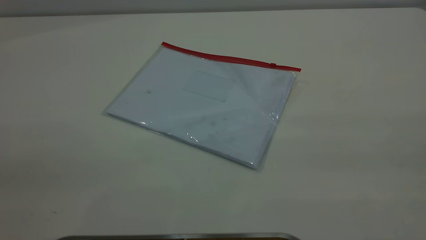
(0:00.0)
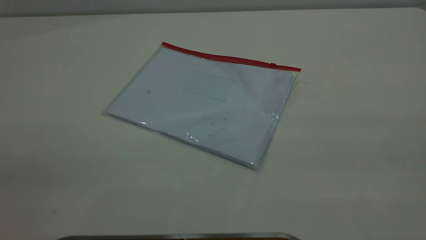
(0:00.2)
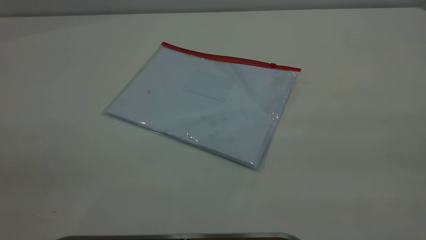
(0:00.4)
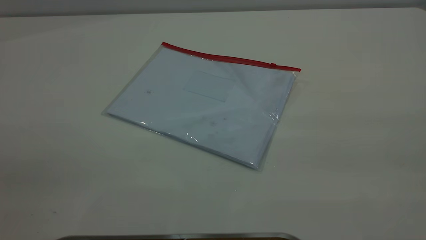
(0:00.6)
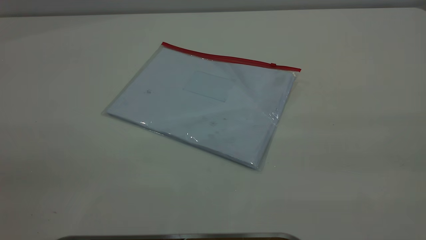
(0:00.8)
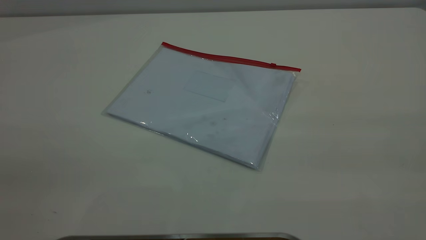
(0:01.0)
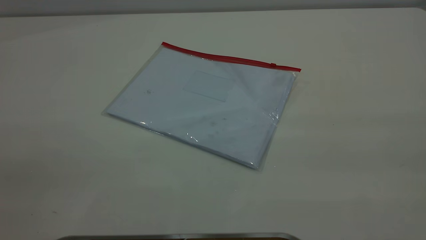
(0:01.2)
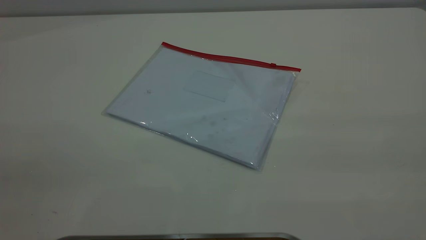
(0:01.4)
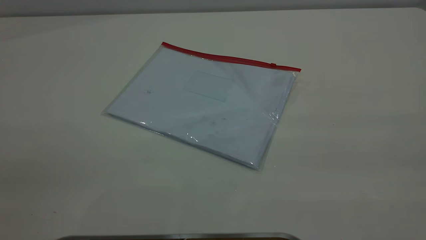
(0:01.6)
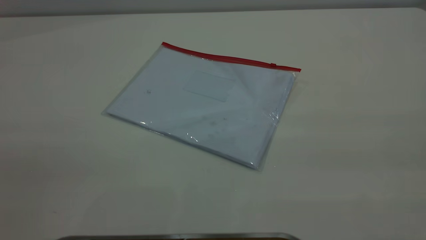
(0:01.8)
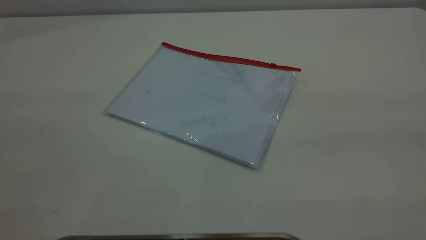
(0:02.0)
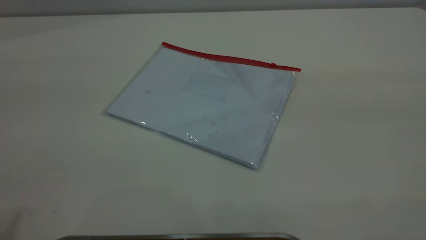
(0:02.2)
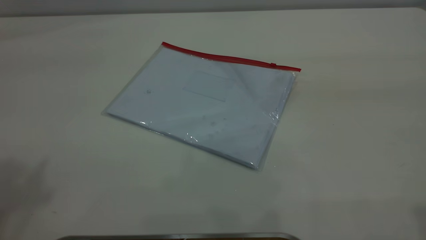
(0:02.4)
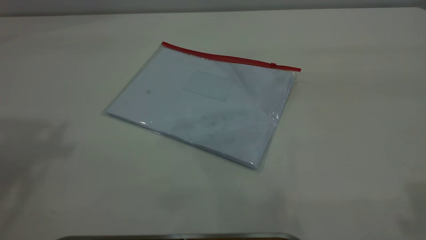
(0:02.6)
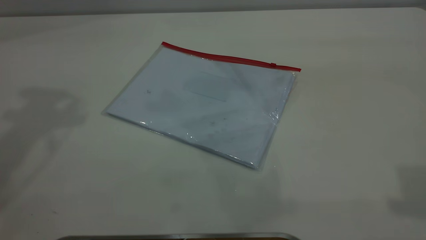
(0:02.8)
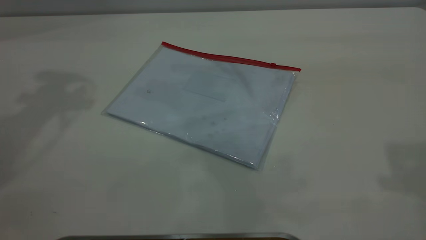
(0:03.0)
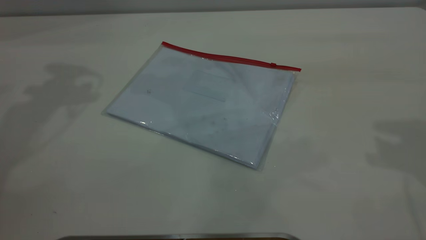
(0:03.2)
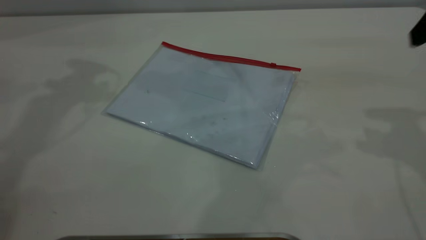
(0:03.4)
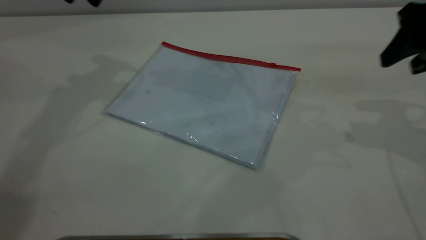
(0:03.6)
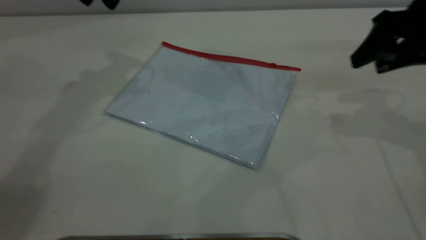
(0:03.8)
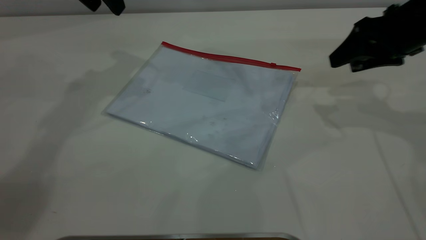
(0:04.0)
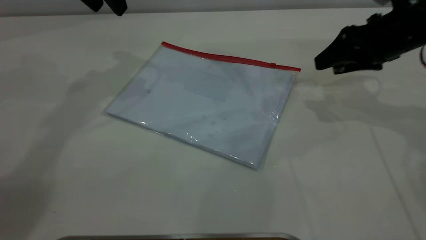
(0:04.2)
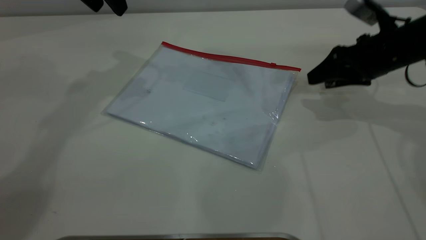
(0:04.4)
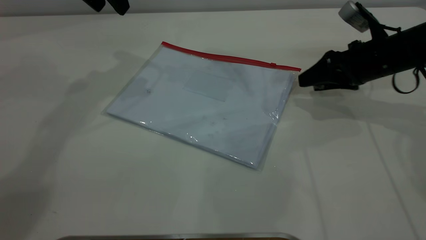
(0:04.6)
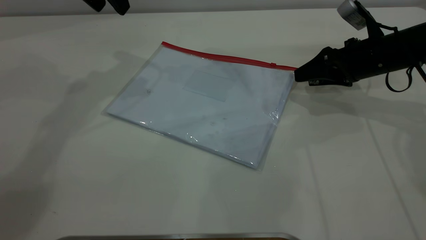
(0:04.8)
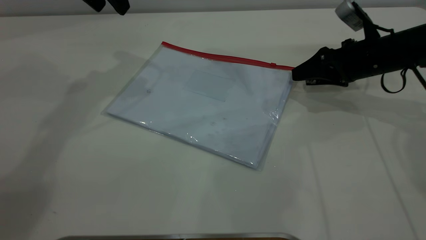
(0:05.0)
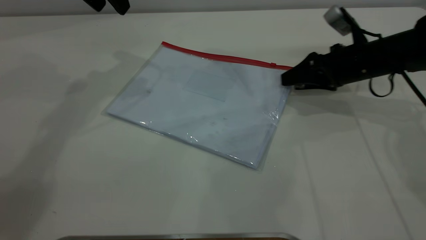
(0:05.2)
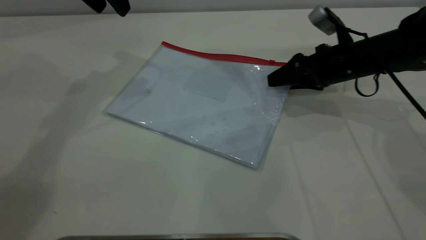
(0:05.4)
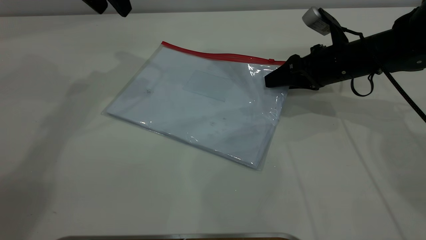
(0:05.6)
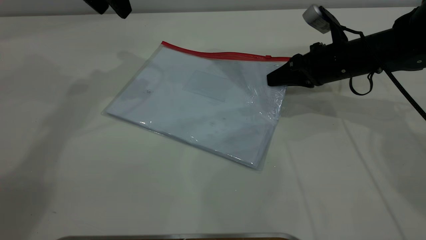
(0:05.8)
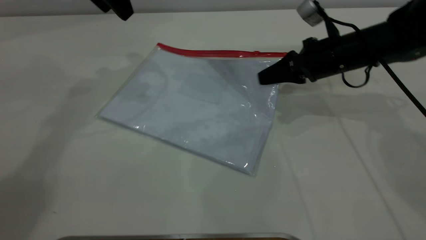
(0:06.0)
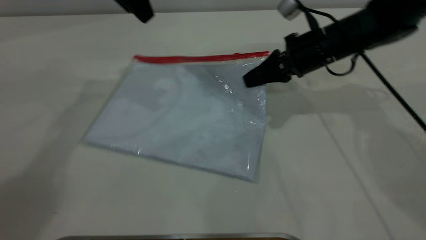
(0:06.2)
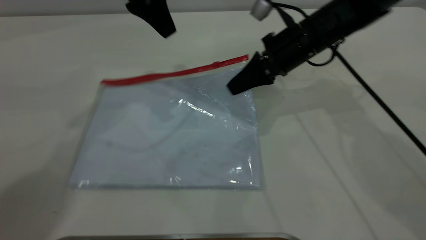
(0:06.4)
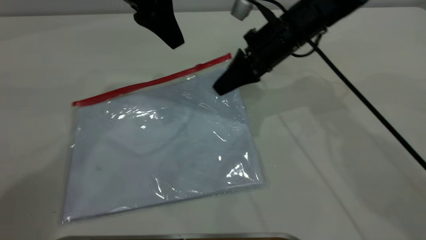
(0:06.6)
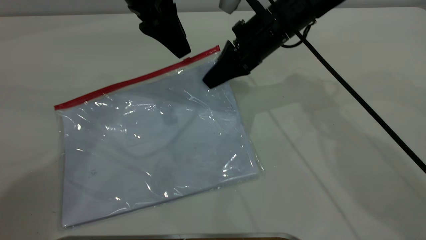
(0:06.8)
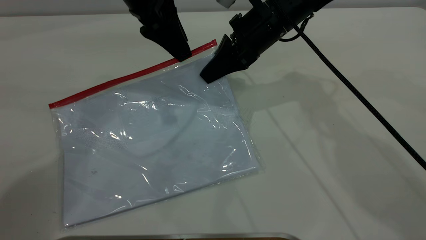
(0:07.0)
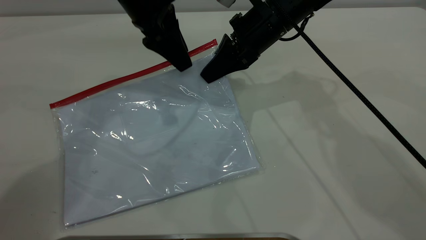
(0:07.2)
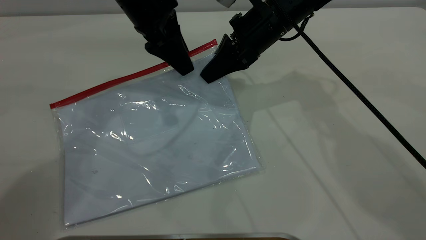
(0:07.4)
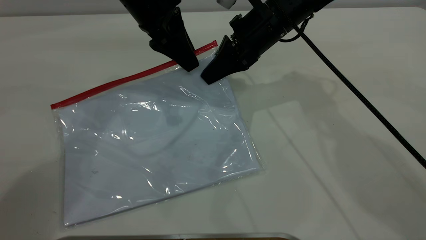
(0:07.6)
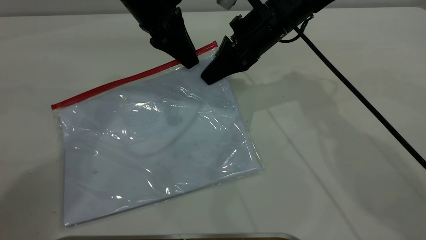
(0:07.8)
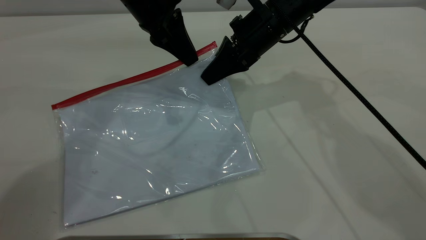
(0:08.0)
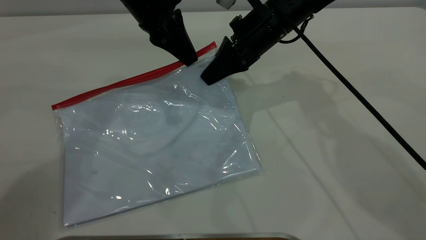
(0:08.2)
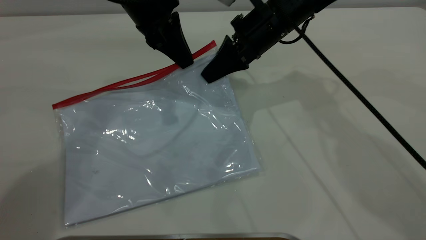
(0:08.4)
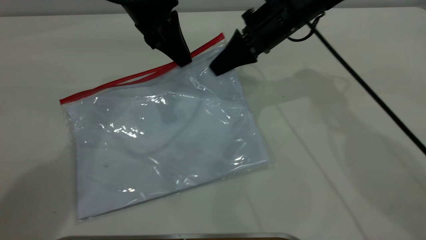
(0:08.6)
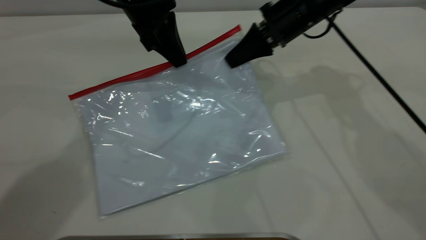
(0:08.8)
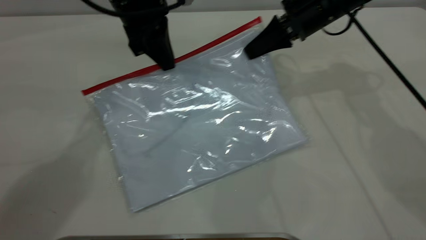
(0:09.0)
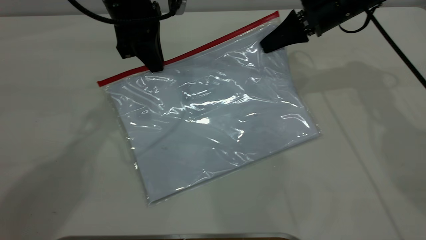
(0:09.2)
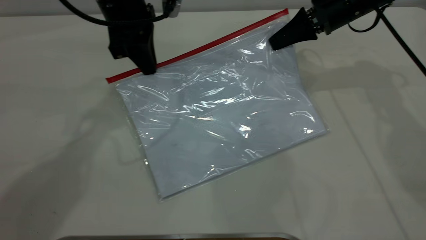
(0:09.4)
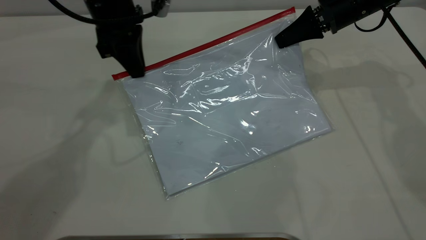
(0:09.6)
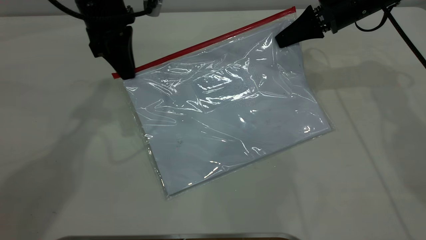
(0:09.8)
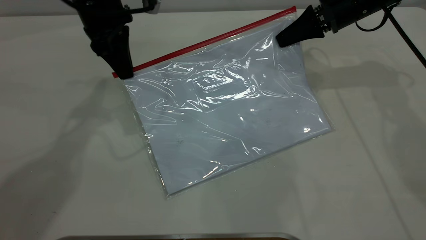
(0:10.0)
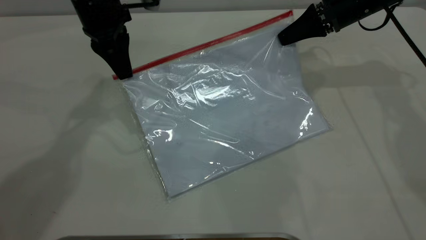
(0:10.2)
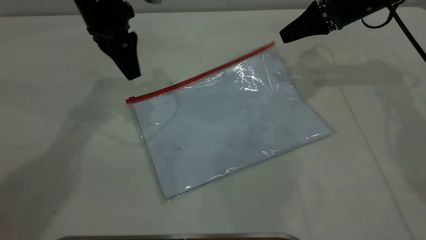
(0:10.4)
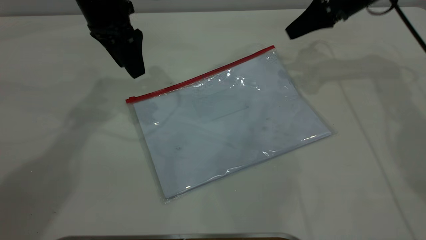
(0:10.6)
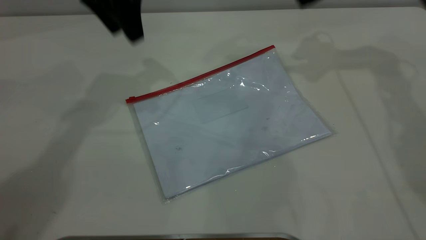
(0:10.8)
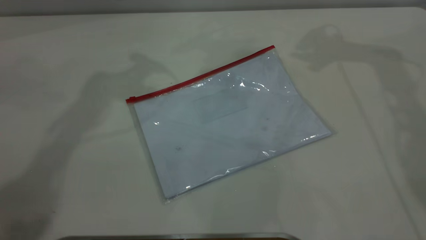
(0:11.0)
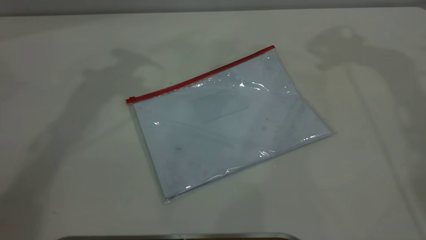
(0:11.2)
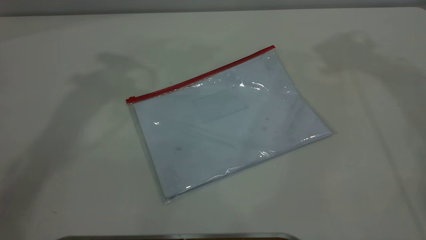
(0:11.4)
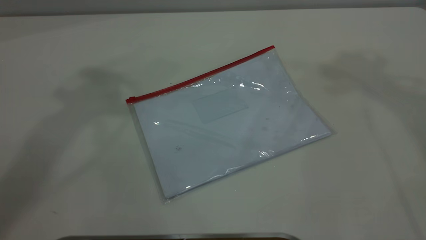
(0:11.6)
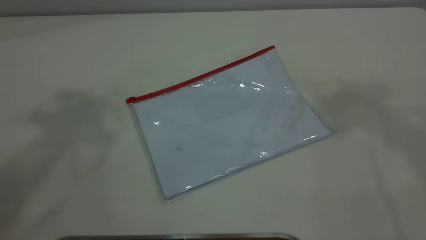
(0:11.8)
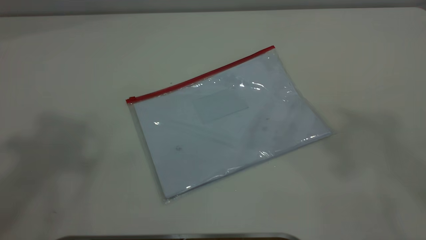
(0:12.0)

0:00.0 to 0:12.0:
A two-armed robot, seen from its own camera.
Step, 0:00.0 to 0:06.4: Pick up the transparent plastic bag with the right gripper.
Step, 0:06.8 to 0:10.2: Pulling up the zipper on the transparent plastic bag with the left gripper to close it.
Step, 0:10.4 to 0:11.2: Place the transparent plastic bag.
0:00.0 to 0:01.6: Both grippers stay put.
0:03.0 to 0:04.4: The right gripper goes some 35 cm downward and forward.
0:04.4 to 0:06.0: The right gripper heads to the left, covering approximately 10 cm, and closes.
0:06.0 to 0:07.6: The left gripper is displaced to the right and downward by roughly 10 cm. Meanwhile the right gripper heads to the left and upward, covering some 10 cm.
0:07.6 to 0:09.0: The right gripper moves to the right, some 10 cm. Meanwhile the left gripper closes its fingers.
0:09.0 to 0:10.4: The left gripper opens. The right gripper goes roughly 5 cm to the right, and opens up.
0:10.4 to 0:12.0: The grippers both shift upward and backward by some 50 cm.

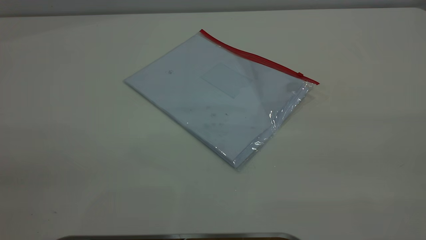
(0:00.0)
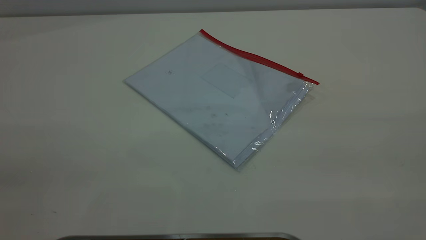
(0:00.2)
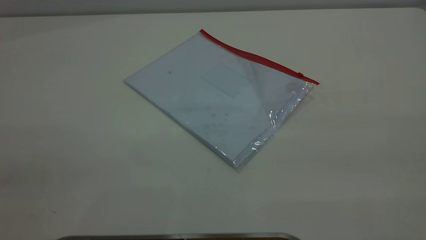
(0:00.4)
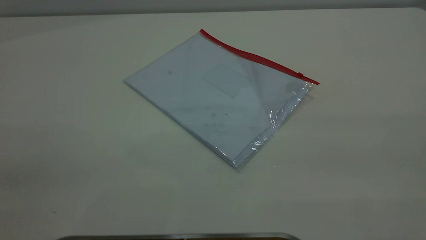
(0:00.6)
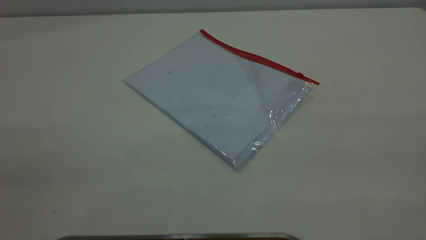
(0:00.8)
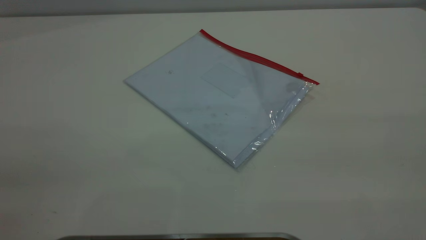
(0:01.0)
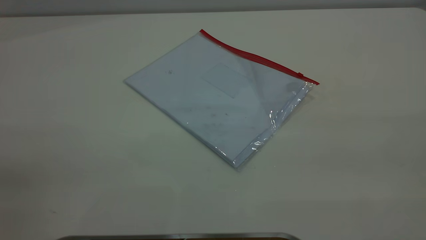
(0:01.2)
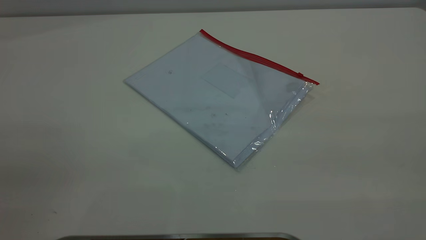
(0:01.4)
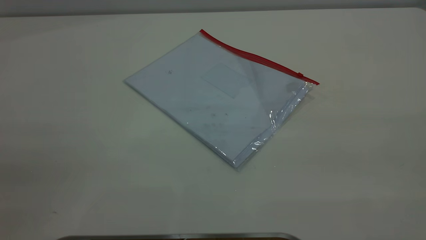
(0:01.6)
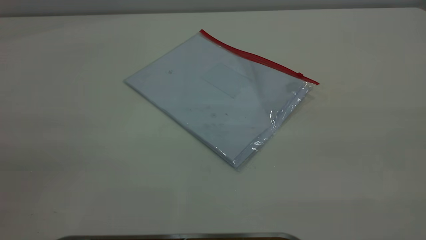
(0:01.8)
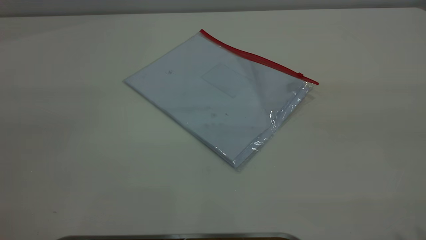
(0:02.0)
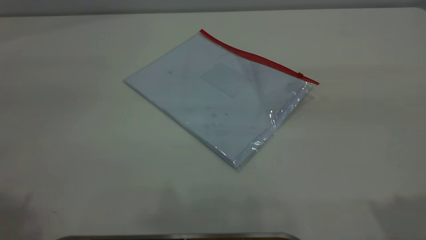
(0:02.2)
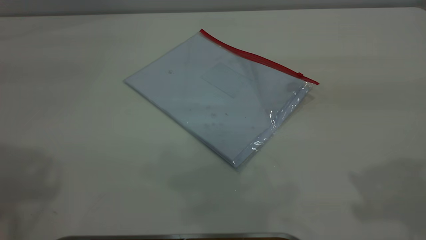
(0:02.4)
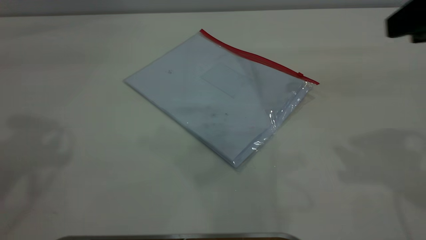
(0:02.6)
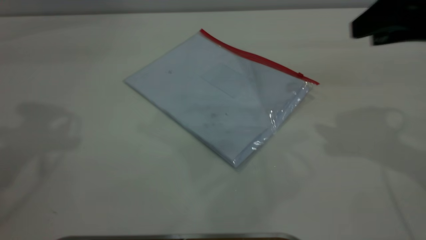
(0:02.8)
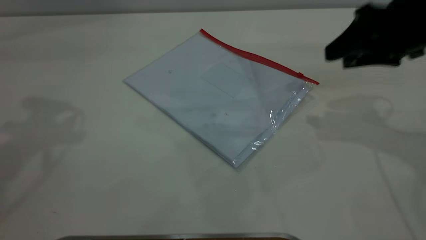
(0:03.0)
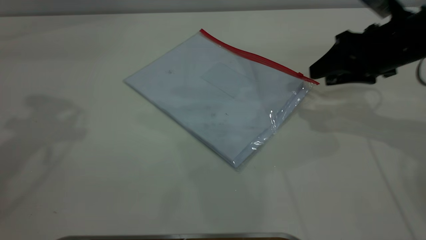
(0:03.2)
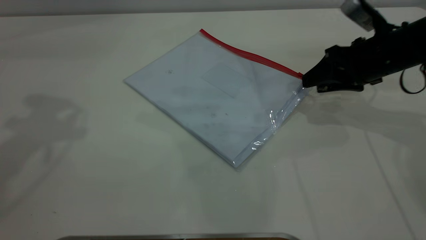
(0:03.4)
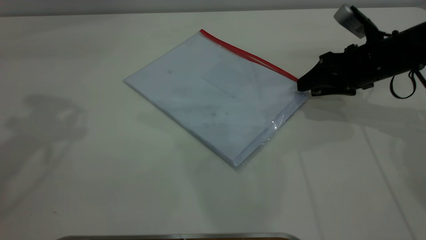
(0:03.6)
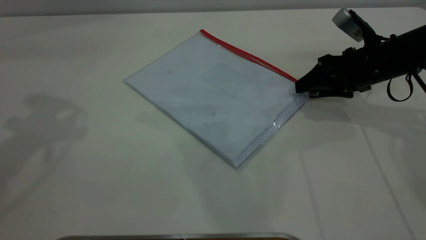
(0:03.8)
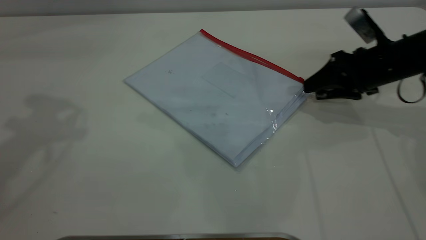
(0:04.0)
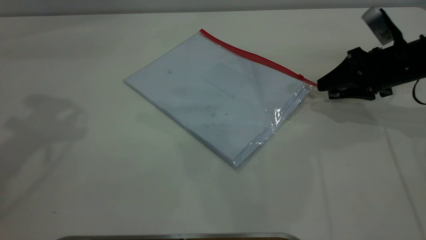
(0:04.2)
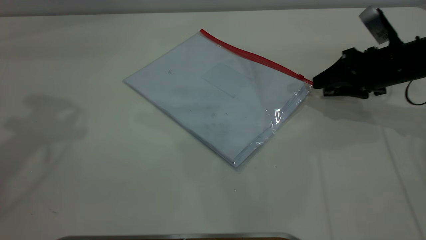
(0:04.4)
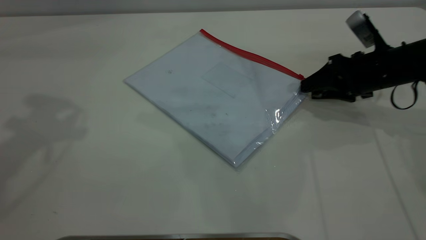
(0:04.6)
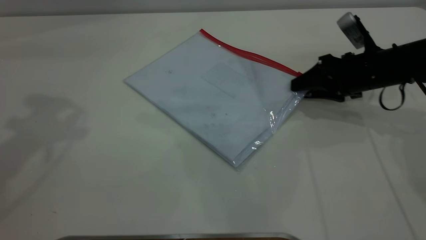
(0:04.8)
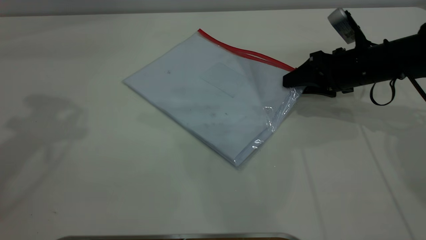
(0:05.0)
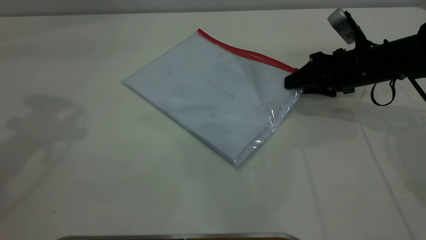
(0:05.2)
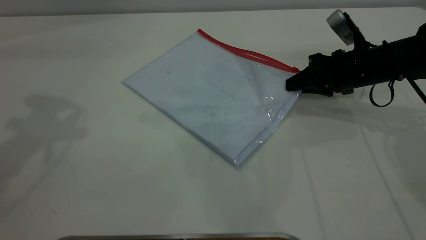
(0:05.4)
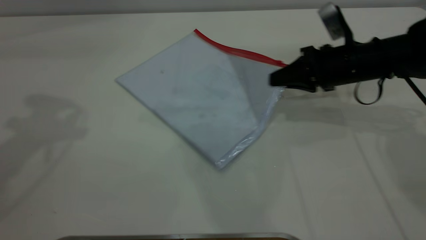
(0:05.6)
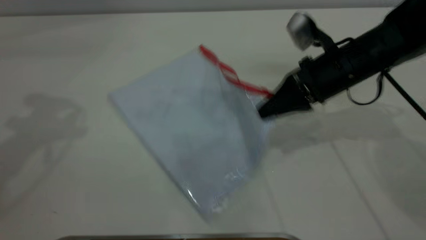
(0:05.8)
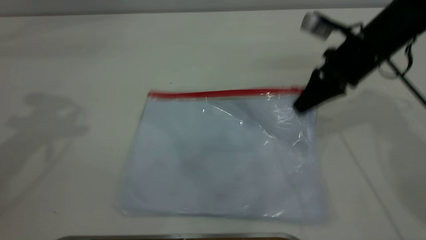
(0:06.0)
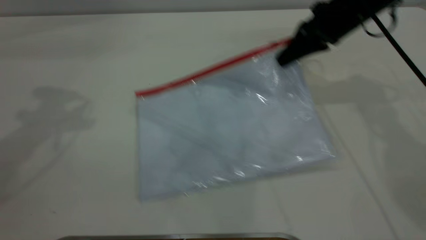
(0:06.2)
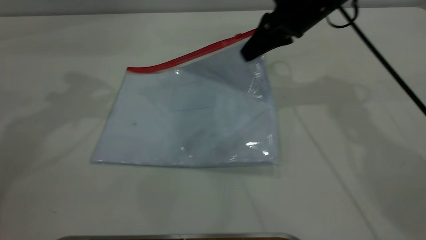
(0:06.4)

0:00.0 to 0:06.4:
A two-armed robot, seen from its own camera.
Step, 0:00.0 to 0:06.2: Pick up the transparent plastic bag with the right gripper.
0:00.0 to 0:01.6: The two grippers keep their place.
0:01.6 to 0:03.2: The right gripper goes roughly 40 cm forward and downward, and opens its fingers.
0:03.2 to 0:04.8: The right gripper is displaced downward by some 5 cm.
0:04.8 to 0:06.4: The left gripper goes roughly 10 cm forward and downward, while the right gripper shifts about 15 cm to the left and upward, and closes its fingers.
